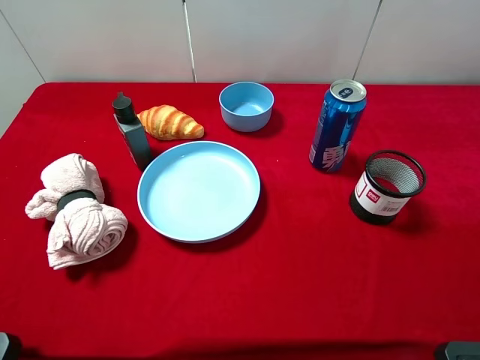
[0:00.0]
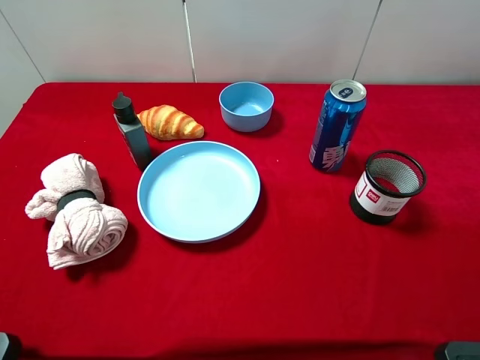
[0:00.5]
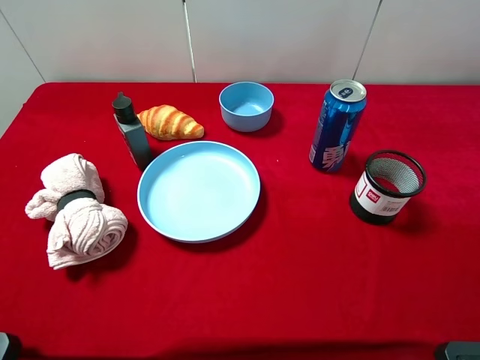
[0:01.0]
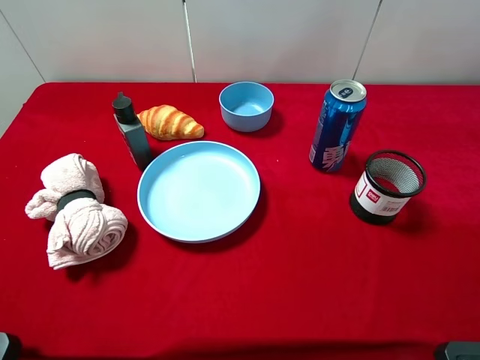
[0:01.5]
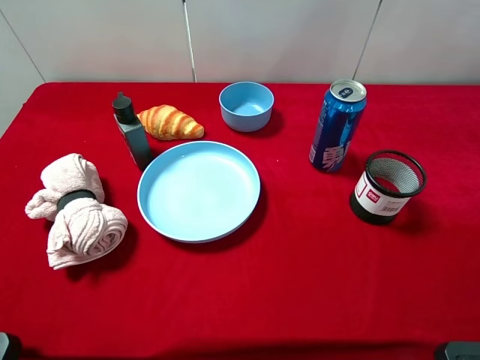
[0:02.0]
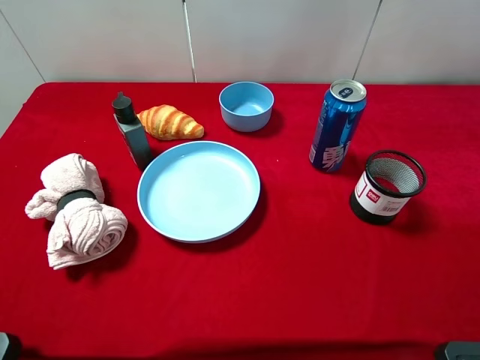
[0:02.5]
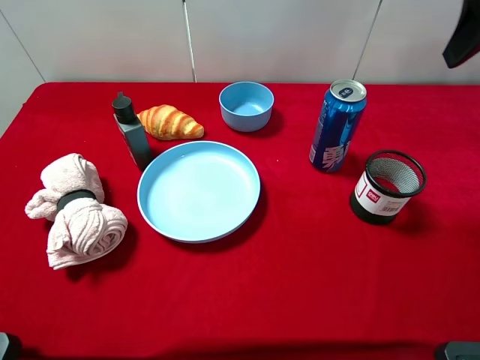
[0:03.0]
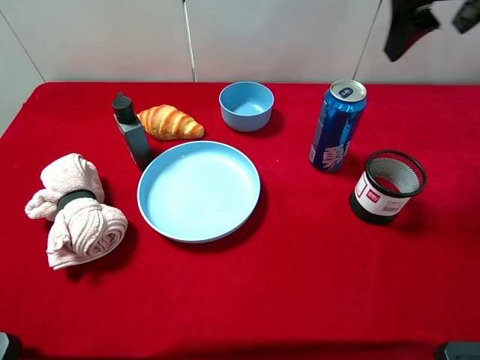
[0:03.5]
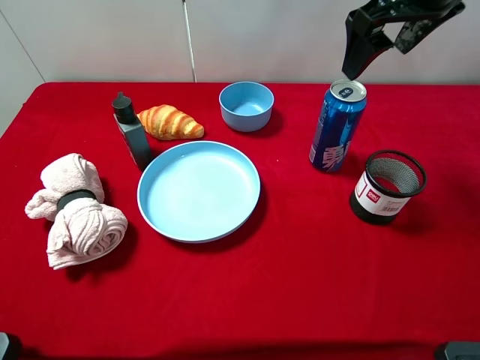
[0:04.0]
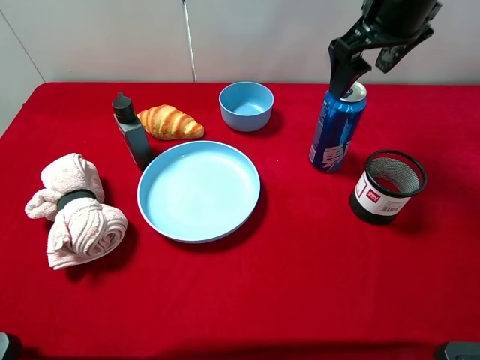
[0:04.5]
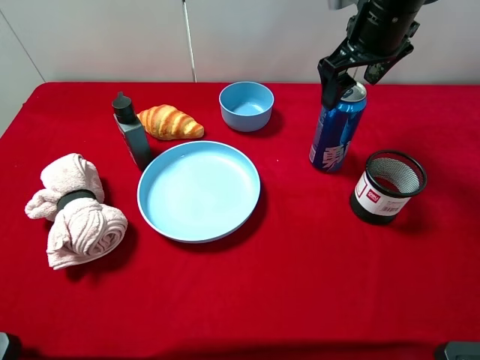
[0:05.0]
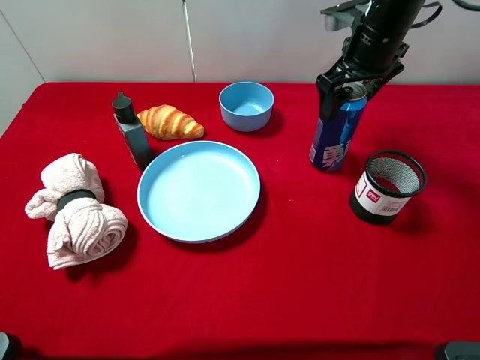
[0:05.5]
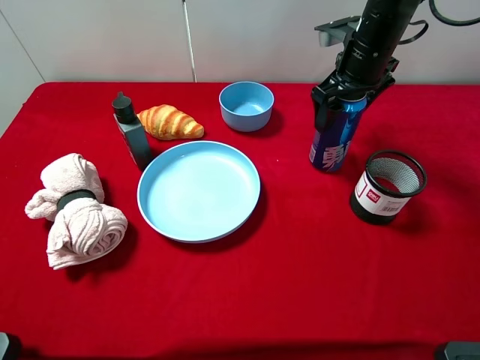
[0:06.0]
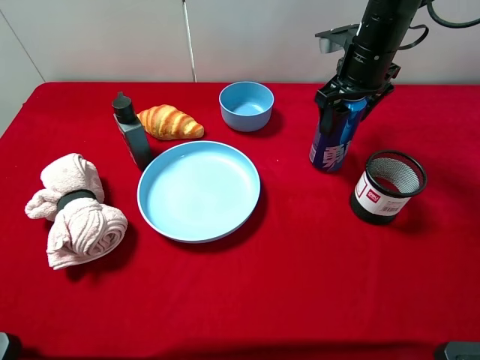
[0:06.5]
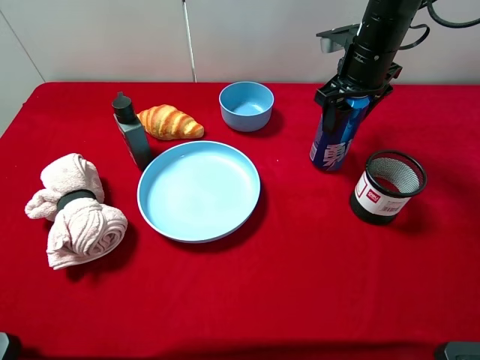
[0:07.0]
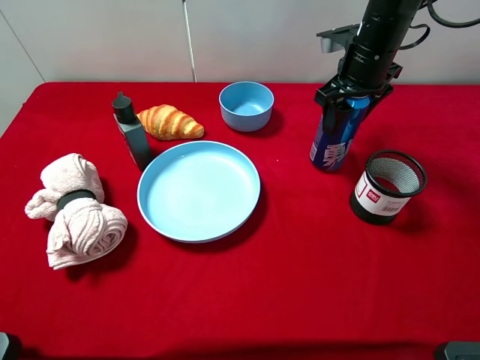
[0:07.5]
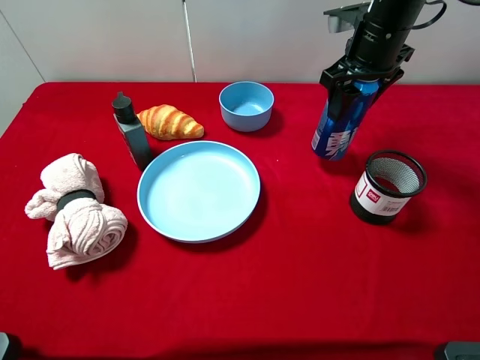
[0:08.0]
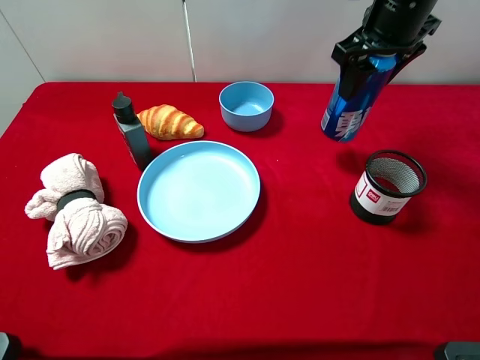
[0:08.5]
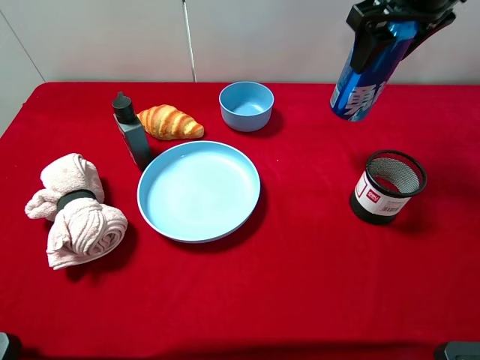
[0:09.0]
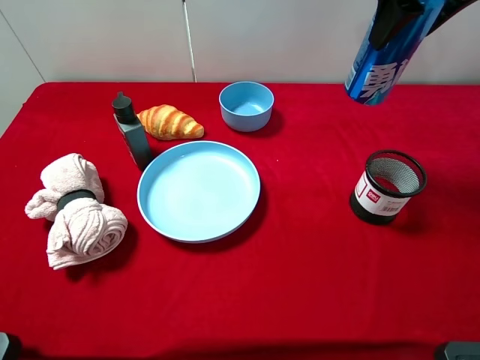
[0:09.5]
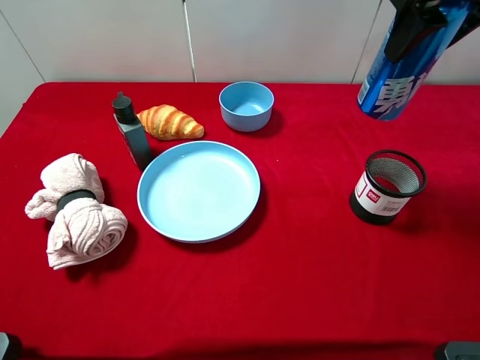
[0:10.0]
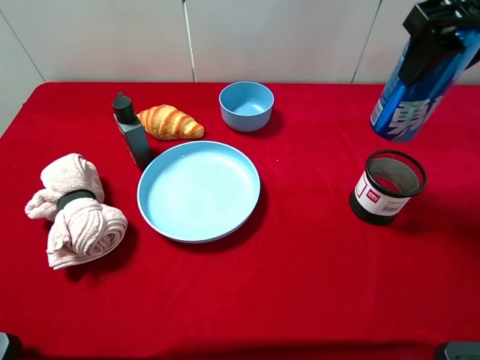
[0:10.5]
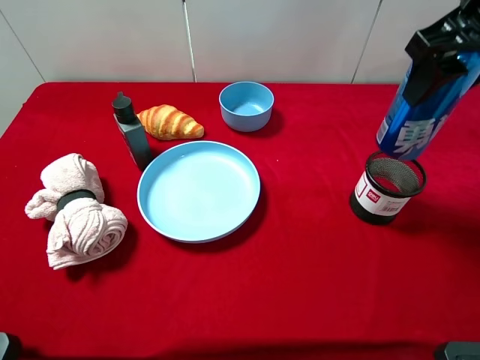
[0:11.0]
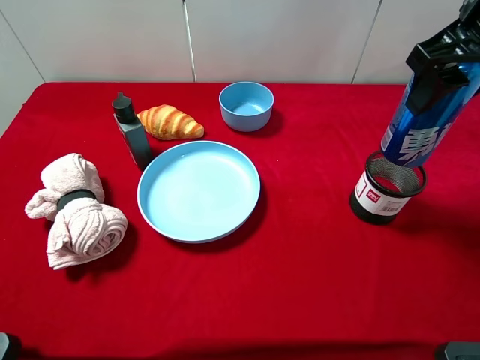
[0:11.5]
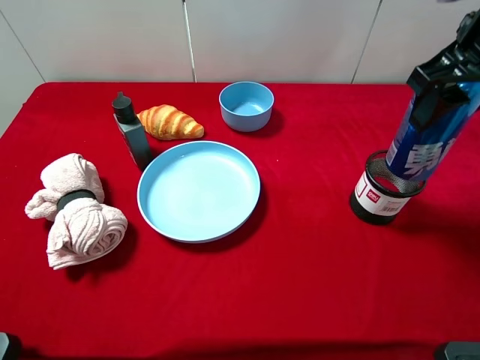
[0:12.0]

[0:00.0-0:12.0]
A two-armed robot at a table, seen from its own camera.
Task of the whole recording: pick up an item with a gripper and place it in a random container on the desktop.
0:02.0 to 0:04.0: The right gripper is displaced forward and to the left by some 25 cm.
0:04.0 to 0:06.0: The right gripper heads downward and forward, covering about 15 cm.
0:06.0 to 0:08.0: The right gripper closes.
0:08.0 to 0:10.0: The right gripper is displaced upward and backward by roughly 15 cm.
0:10.0 to 0:12.0: The right gripper shifts by approximately 5 cm.

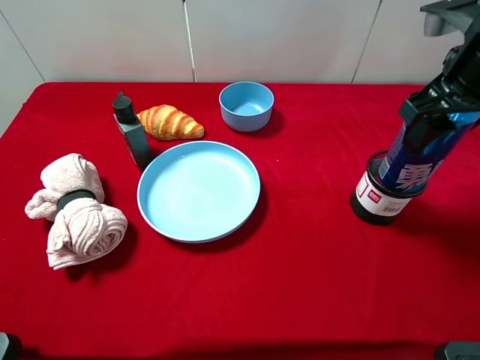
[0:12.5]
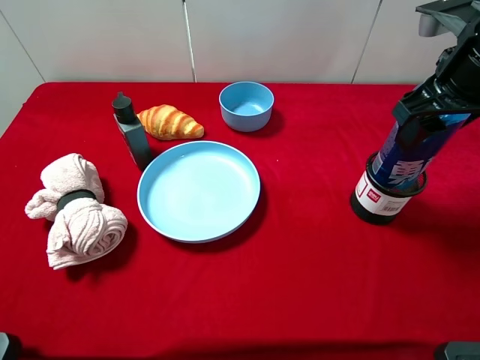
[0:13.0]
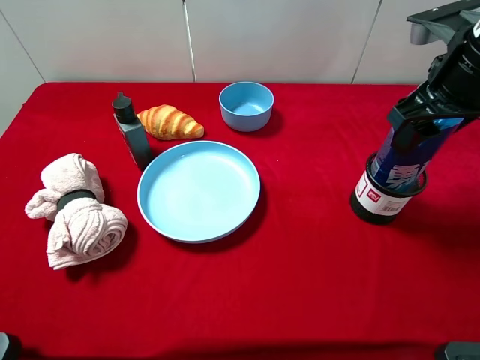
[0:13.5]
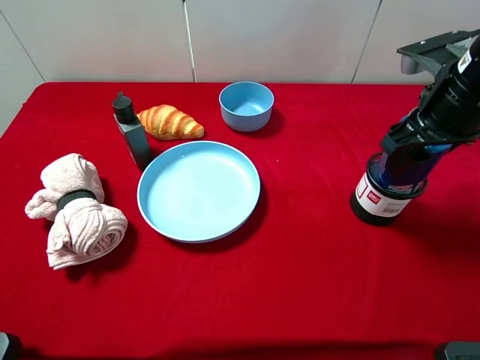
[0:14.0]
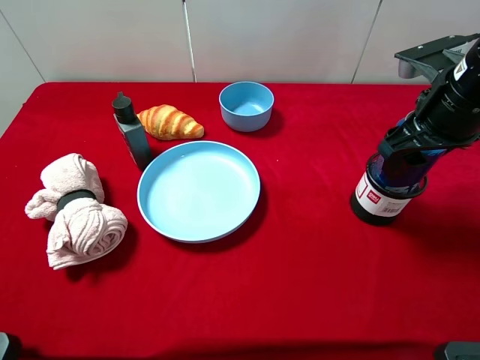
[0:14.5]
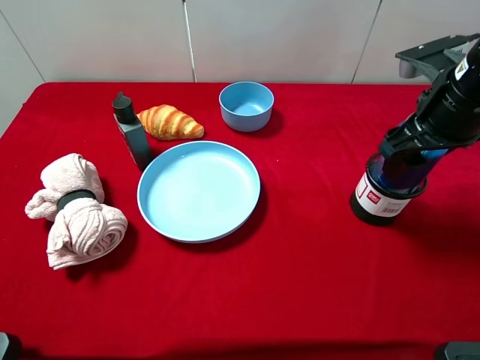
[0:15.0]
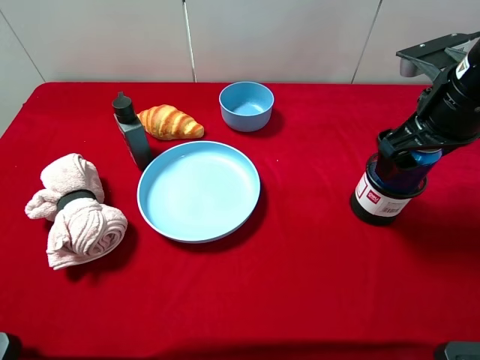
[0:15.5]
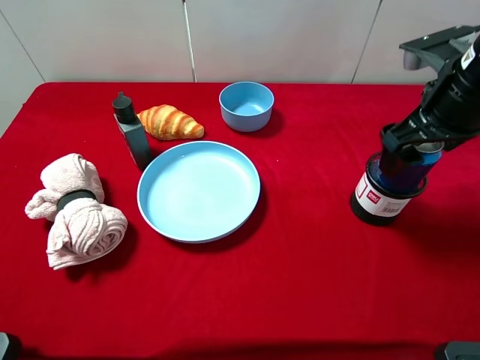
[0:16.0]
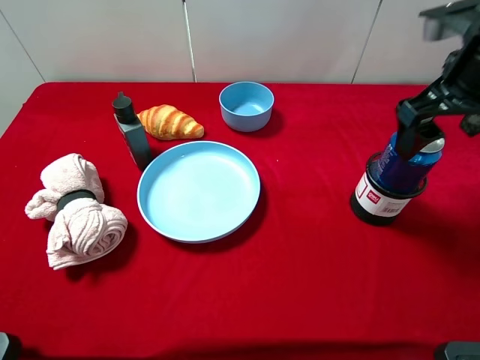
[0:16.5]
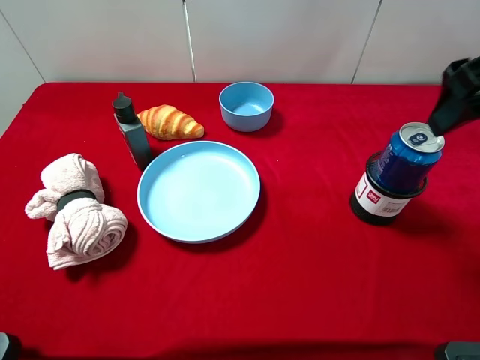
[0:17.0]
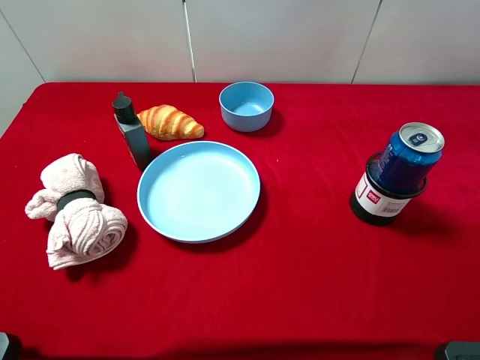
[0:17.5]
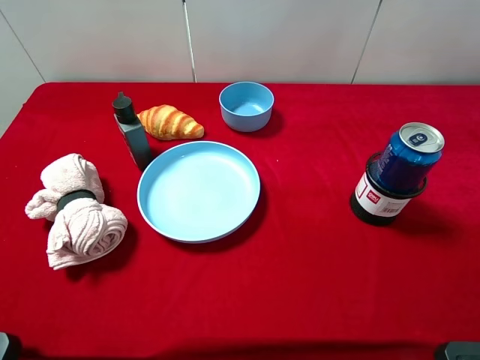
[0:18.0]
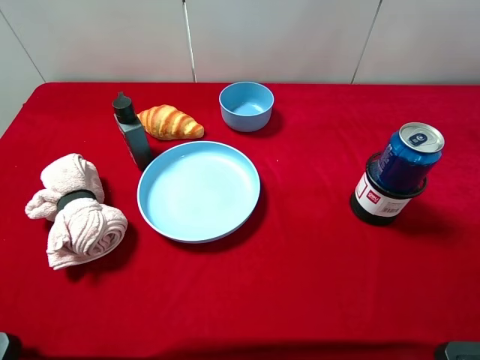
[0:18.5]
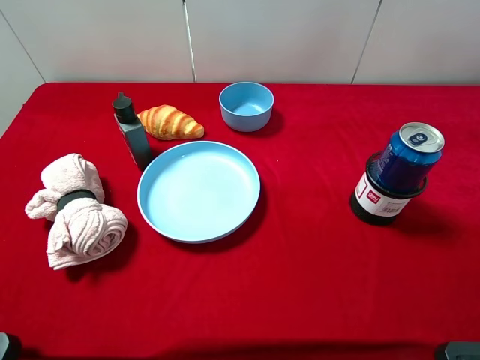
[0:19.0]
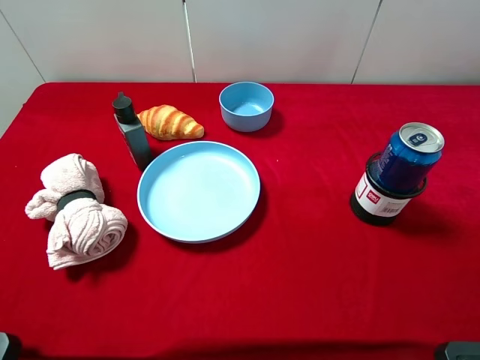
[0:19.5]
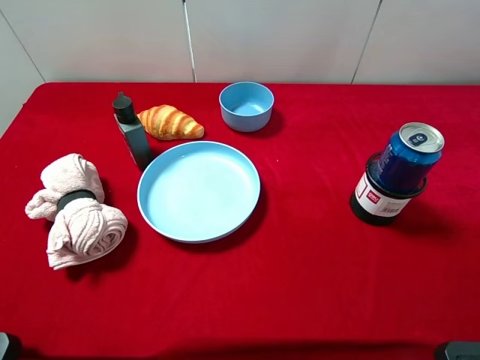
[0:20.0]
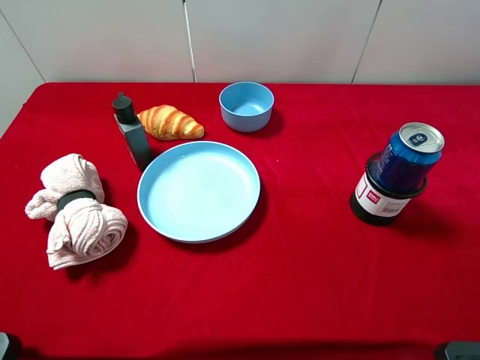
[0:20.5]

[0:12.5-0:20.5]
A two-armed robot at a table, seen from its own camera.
Task of the whole recording: pick up an item with a gripper and place it in a random container on the desktop.
0:12.5 to 0:14.5: There are only small adjustments of the grippers.
0:14.5 to 0:16.5: The right gripper moves upward, roughly 5 cm, and opens up.
0:16.5 to 0:18.5: The right gripper is displaced backward and upward by approximately 20 cm.
